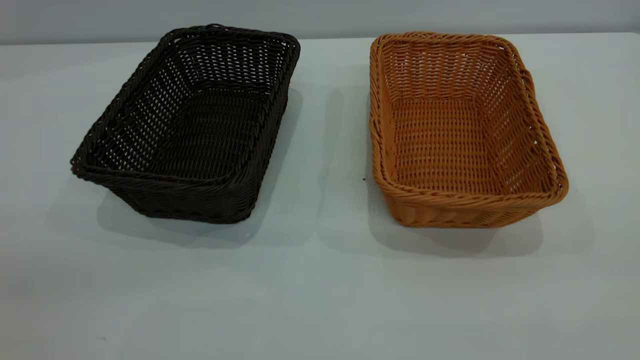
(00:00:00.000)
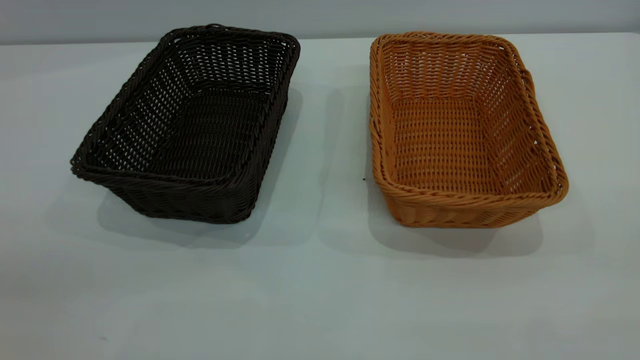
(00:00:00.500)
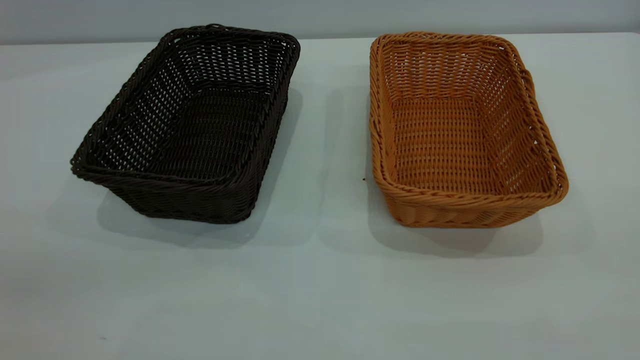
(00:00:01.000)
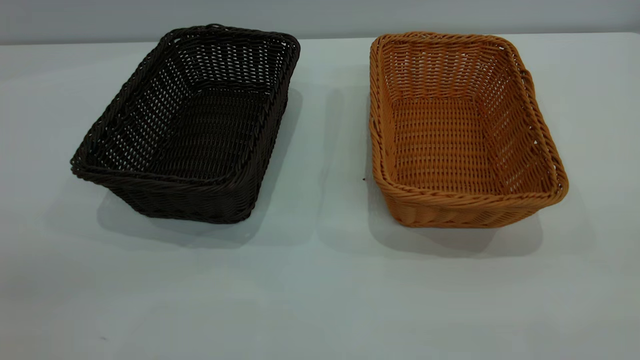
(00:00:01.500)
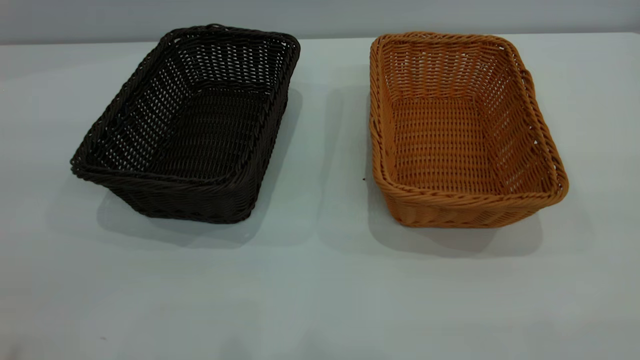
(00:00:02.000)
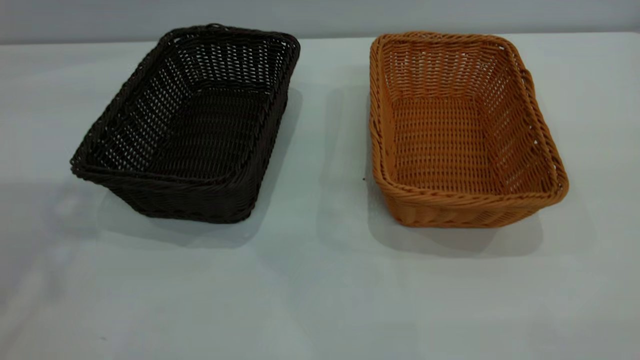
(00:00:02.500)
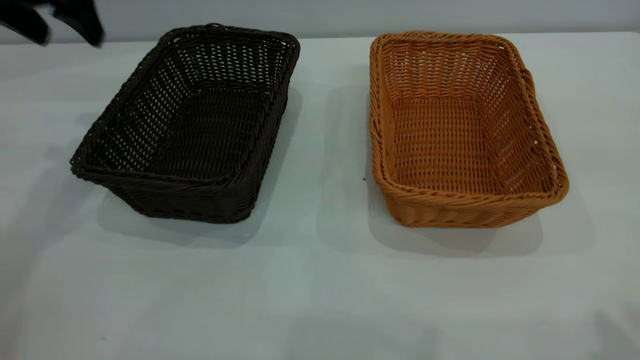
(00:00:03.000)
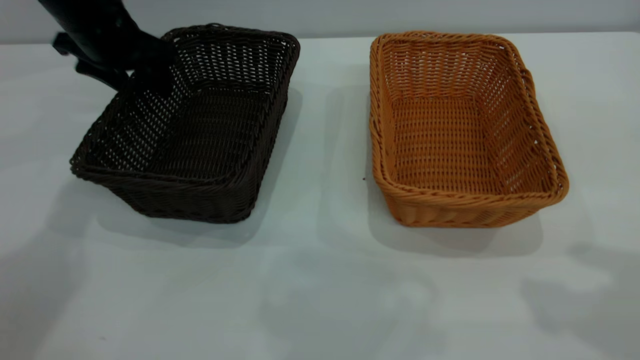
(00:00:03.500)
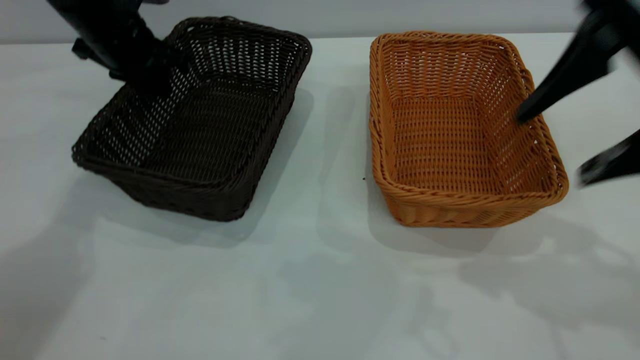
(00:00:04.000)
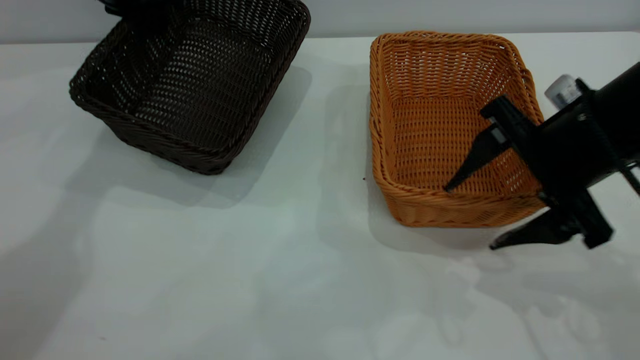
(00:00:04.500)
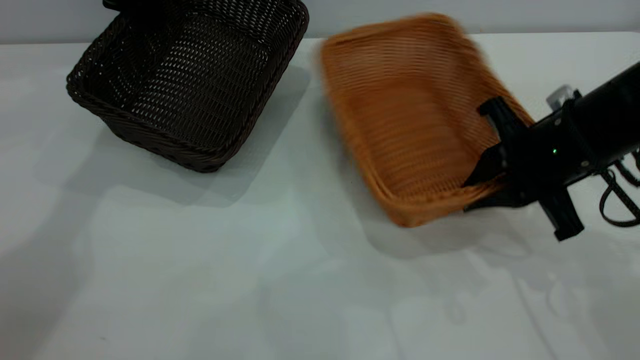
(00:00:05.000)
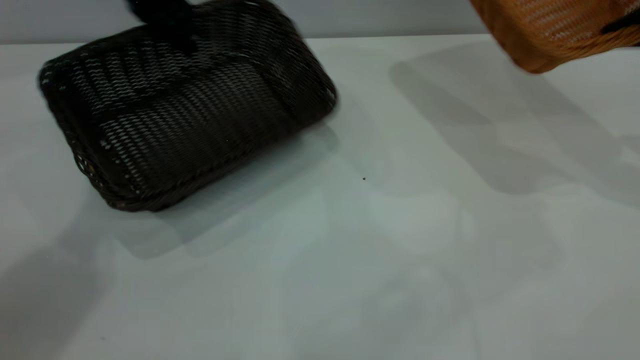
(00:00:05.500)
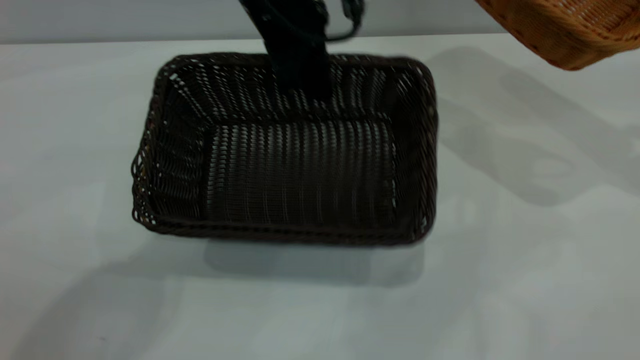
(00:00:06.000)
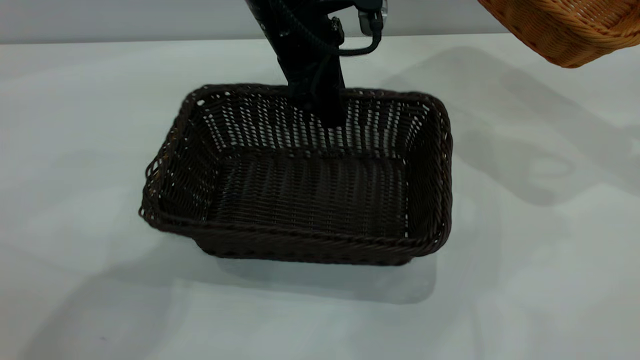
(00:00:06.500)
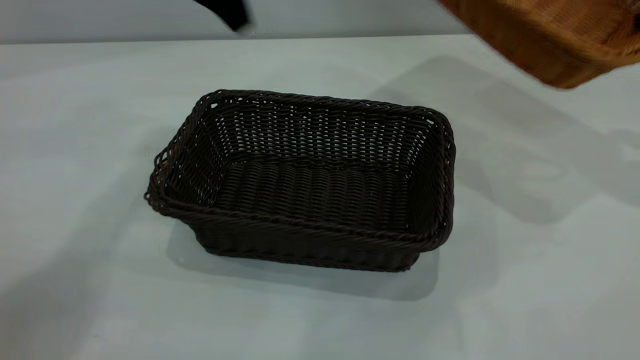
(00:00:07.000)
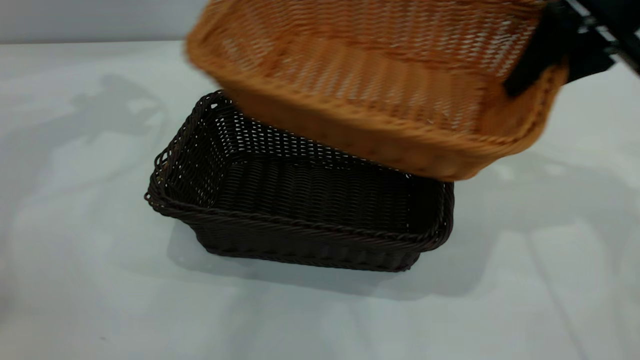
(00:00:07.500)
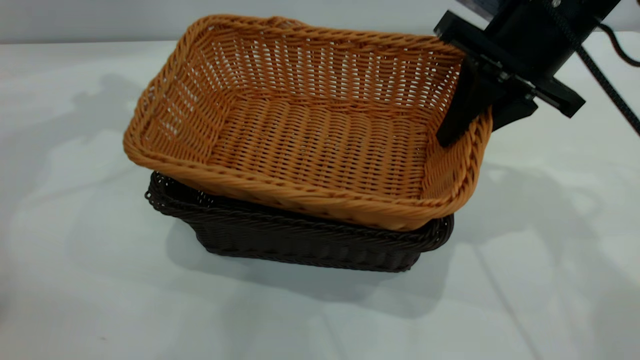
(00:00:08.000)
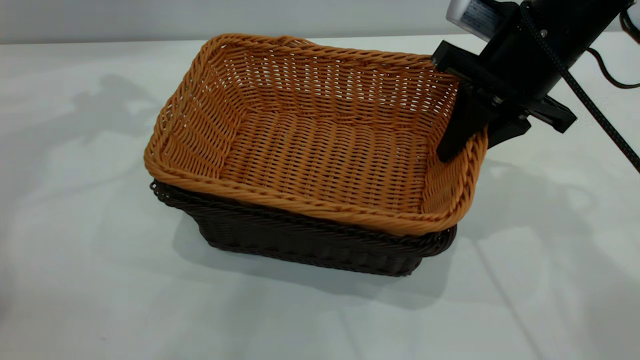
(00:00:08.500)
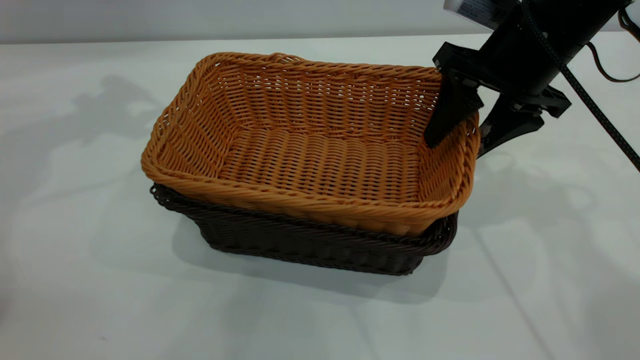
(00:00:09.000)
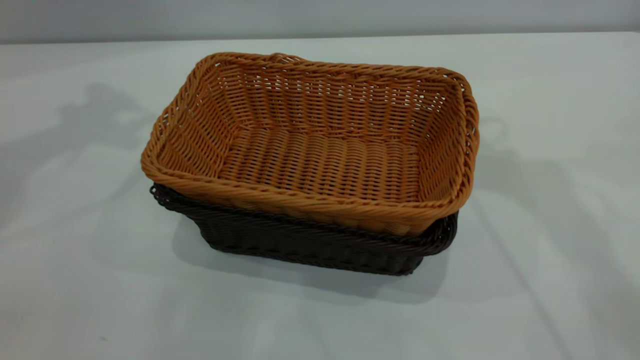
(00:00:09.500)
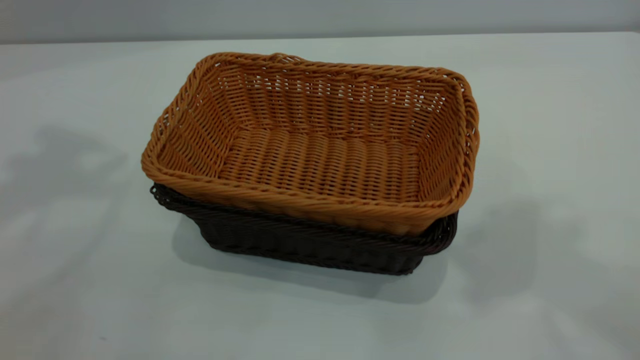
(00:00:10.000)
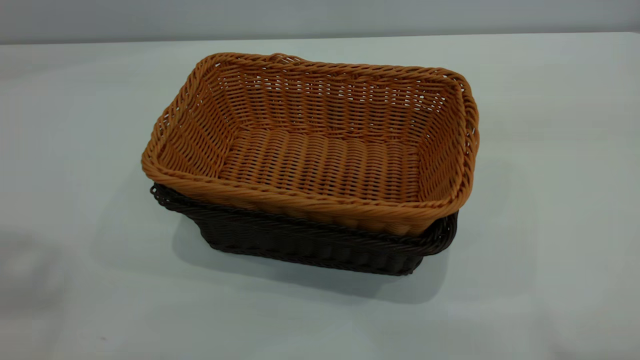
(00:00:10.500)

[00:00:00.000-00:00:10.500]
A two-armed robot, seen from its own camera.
Task of the whole recording: the left gripper grasp the black basket and place it in the center of the table, the right gripper grasp the brown basket and place it inside the black one.
Step, 00:00:00.000 to 00:00:05.000: Pick up the light basket with the right gripper.
Step, 00:00:05.500 to 00:00:06.500: Move the dark basket to the center of view.
Step, 00:00:07.000 to 00:00:09.000: Place the light basket on the dark basket.
00:00:02.000 to 00:00:04.000: The left gripper travels forward and downward by roughly 50 cm, and closes, while the right gripper shifts approximately 30 cm forward and downward.
00:00:04.000 to 00:00:06.500: The right gripper goes approximately 20 cm to the right and forward, and closes up. Meanwhile the left gripper shifts roughly 20 cm to the right, and opens.
00:00:06.500 to 00:00:08.500: Both grippers move to the left, roughly 25 cm.
00:00:08.500 to 00:00:10.500: The left gripper goes approximately 35 cm backward and upward. The right gripper heads upward and backward, covering about 40 cm, and opens its fingers.
